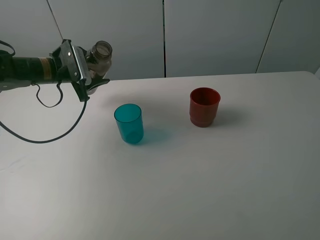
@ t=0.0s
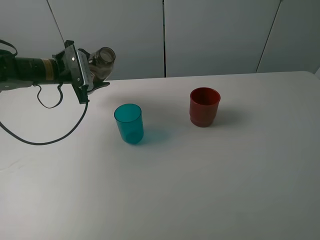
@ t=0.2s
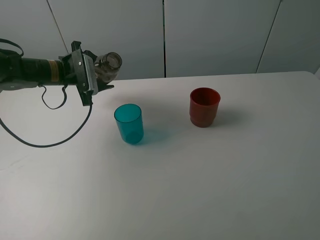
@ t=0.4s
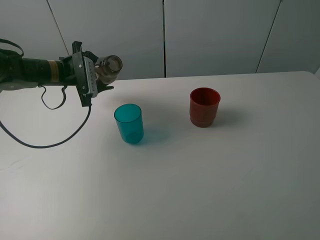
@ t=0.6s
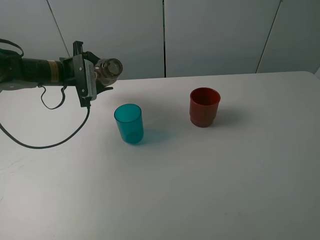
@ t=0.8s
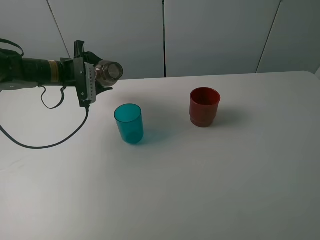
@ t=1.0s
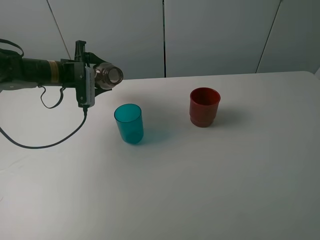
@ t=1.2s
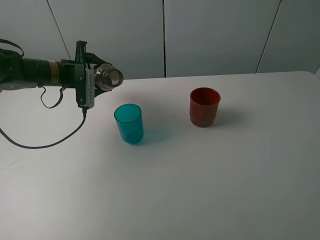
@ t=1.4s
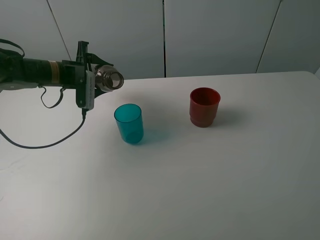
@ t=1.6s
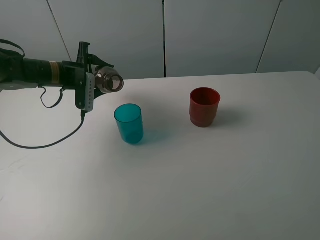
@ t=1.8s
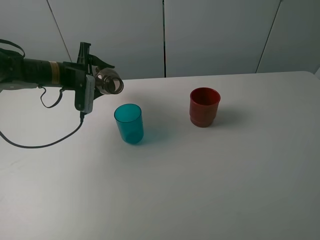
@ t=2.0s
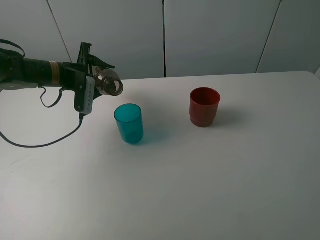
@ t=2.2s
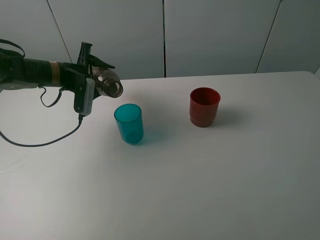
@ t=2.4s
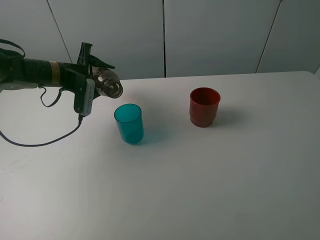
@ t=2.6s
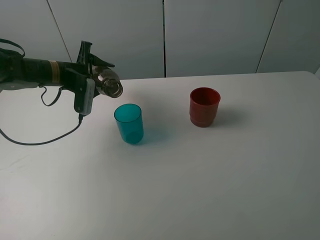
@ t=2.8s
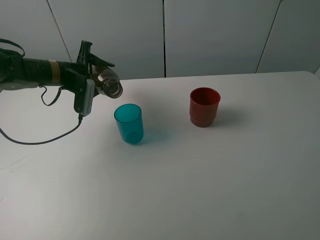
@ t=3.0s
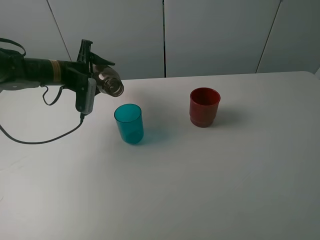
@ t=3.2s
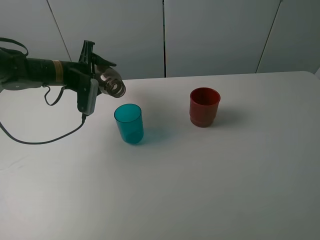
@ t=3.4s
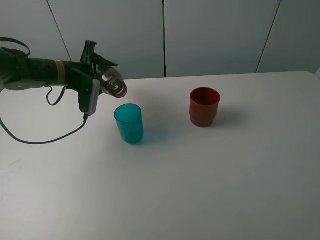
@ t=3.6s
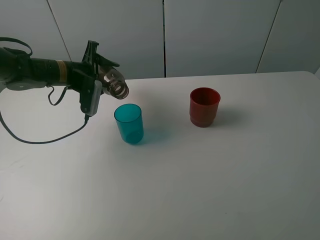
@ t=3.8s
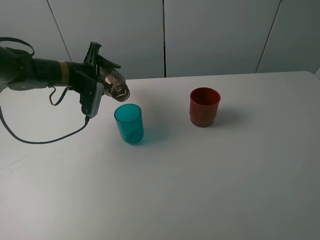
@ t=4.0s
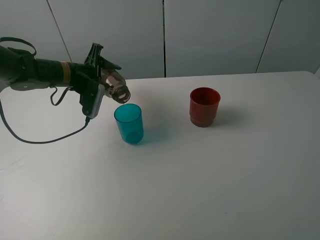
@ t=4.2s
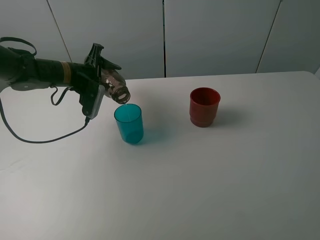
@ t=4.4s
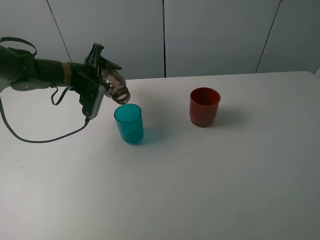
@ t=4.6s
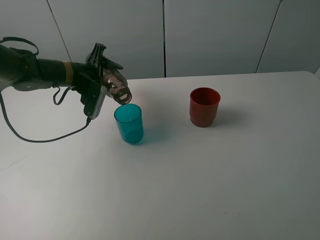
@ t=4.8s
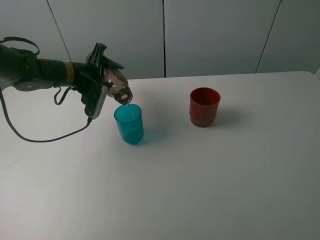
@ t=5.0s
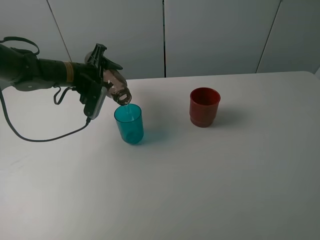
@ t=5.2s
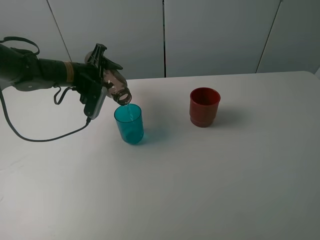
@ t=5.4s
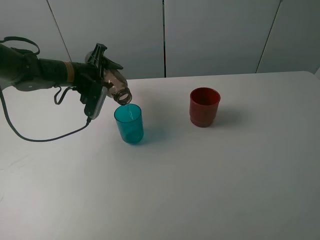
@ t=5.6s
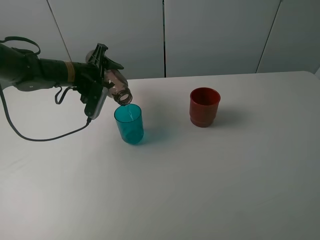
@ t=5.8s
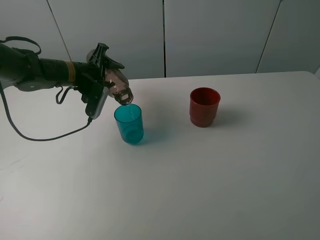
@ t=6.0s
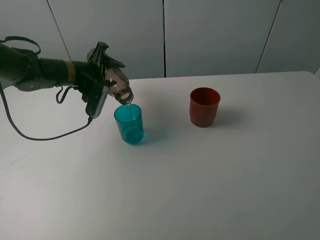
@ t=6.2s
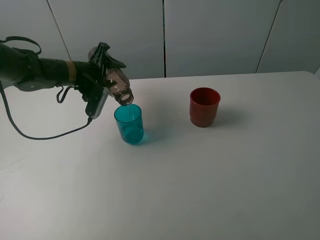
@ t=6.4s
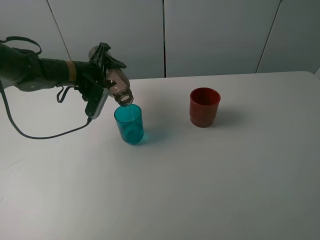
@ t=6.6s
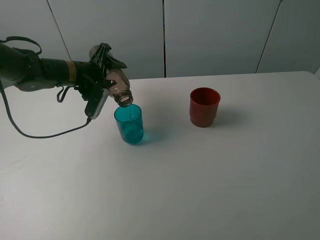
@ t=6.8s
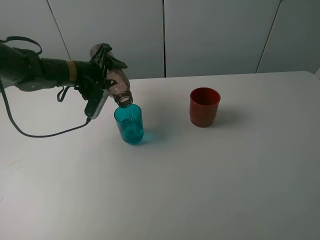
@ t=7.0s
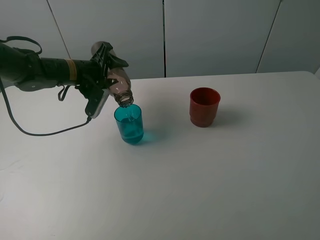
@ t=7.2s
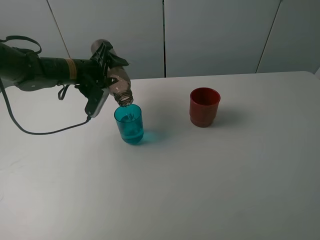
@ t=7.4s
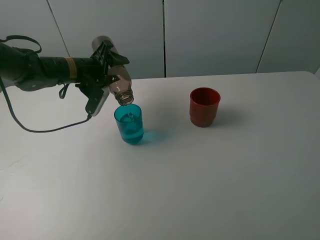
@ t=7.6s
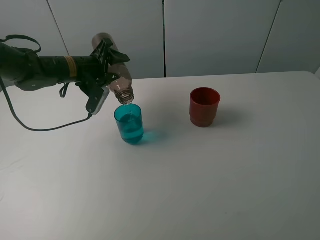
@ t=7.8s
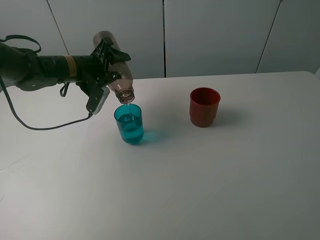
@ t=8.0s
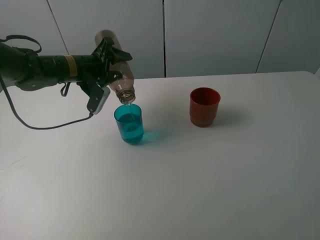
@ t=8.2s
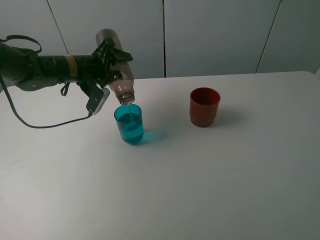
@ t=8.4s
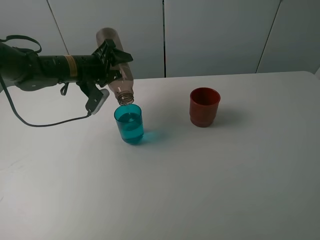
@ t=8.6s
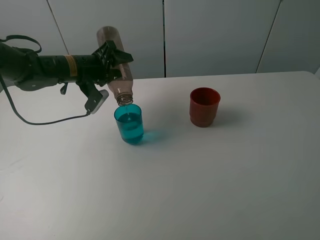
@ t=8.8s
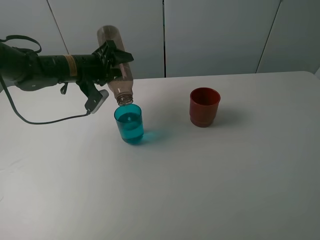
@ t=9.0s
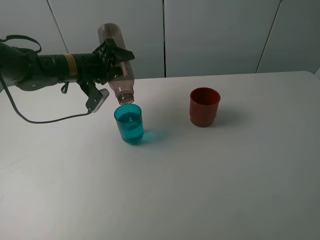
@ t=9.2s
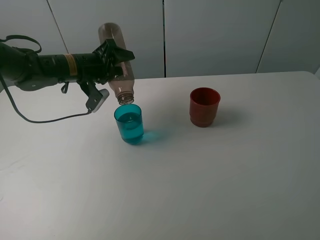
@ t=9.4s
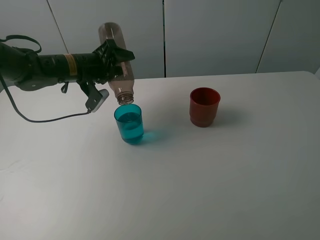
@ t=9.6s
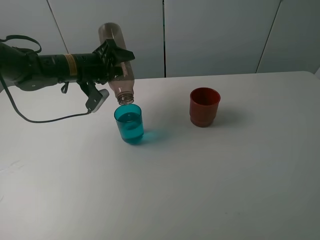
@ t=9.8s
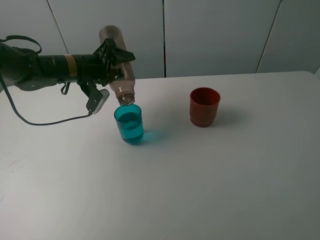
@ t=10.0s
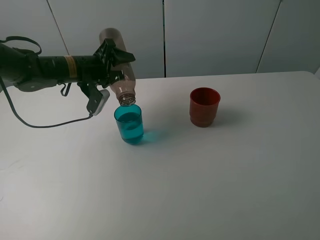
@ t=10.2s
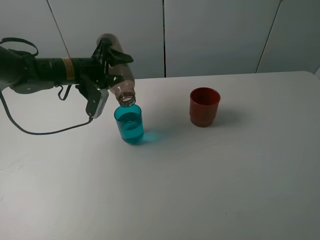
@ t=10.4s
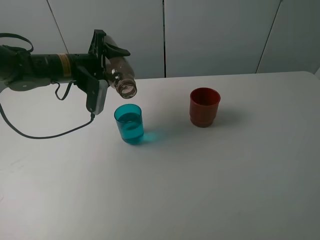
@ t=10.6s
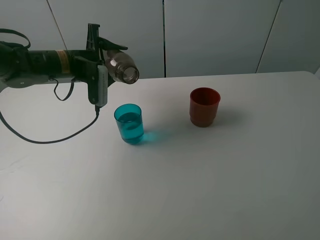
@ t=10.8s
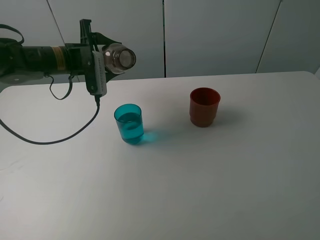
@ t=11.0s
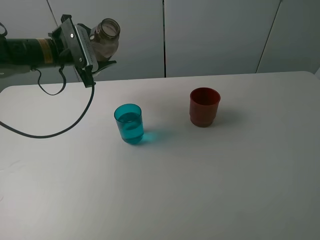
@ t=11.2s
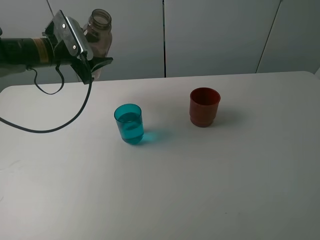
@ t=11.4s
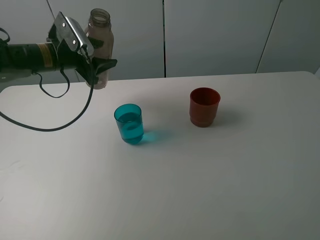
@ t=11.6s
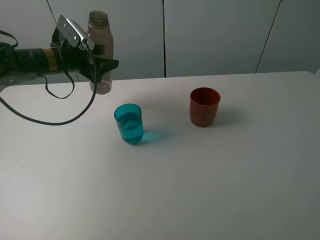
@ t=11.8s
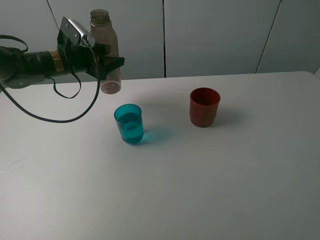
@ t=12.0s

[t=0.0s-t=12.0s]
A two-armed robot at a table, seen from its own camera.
Task of the whole recording: pick up the bottle and pour water into the cup, then pick up the cup containing water and pour it into another cup.
Step, t=0.0s to t=10.2s: Pour water from brown bottle to blue cup with the left gripper.
t=1.6s to t=3.0s: The grippers stay close to where they were, moving slightly.
t=3.0s to t=6.0s: There are only small adjustments of the grippers.
t=6.0s to t=7.6s: There are only small adjustments of the grippers.
t=7.6s to t=10.4s: The grippers move only a little.

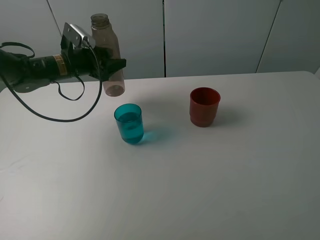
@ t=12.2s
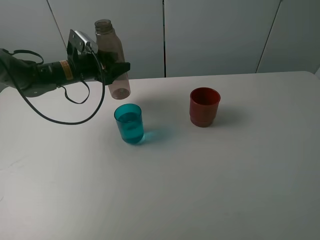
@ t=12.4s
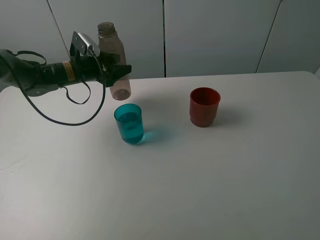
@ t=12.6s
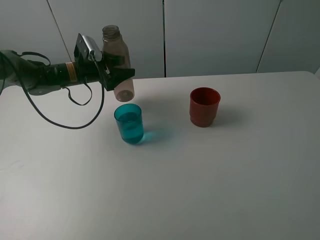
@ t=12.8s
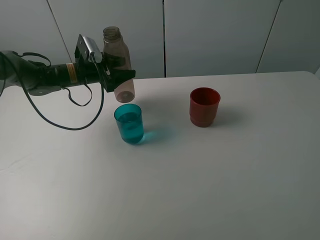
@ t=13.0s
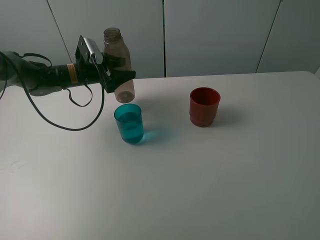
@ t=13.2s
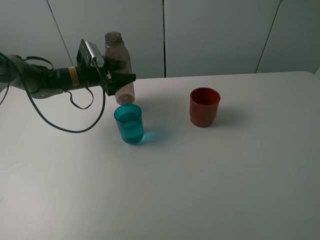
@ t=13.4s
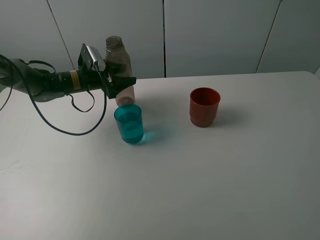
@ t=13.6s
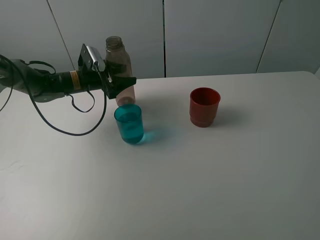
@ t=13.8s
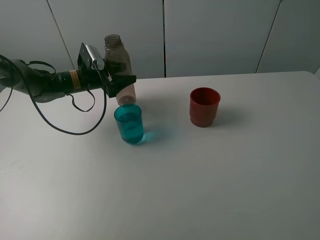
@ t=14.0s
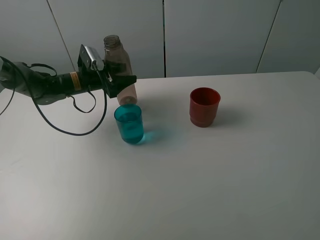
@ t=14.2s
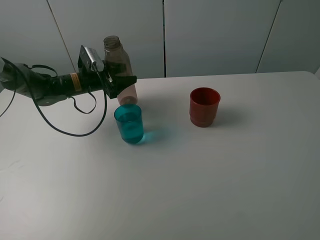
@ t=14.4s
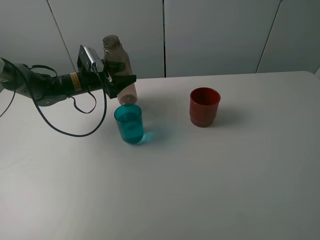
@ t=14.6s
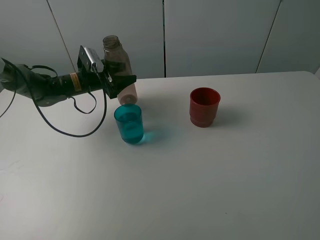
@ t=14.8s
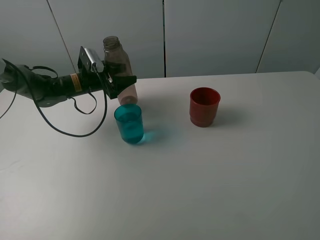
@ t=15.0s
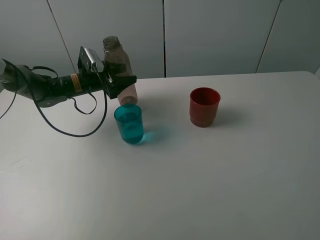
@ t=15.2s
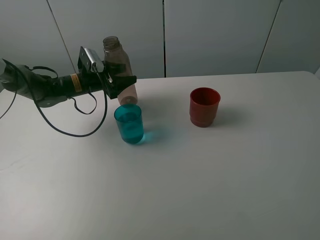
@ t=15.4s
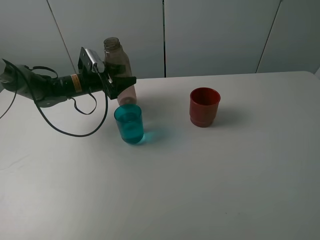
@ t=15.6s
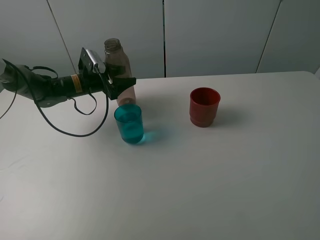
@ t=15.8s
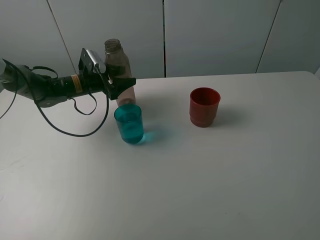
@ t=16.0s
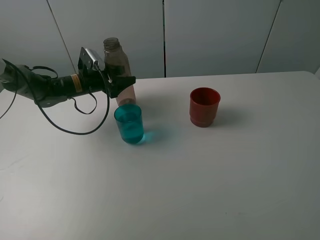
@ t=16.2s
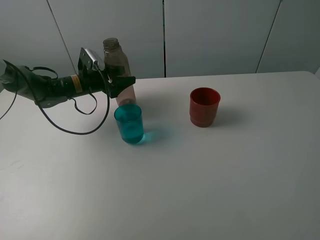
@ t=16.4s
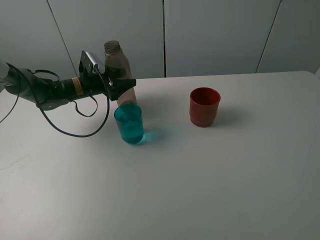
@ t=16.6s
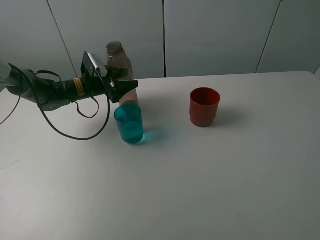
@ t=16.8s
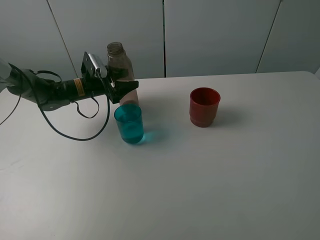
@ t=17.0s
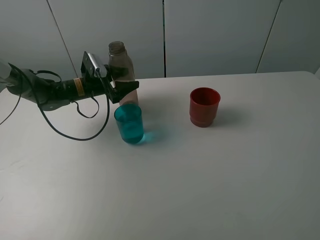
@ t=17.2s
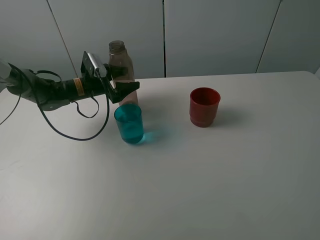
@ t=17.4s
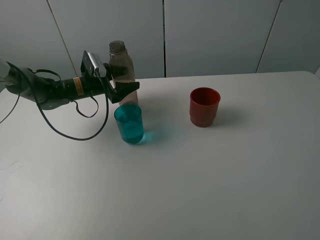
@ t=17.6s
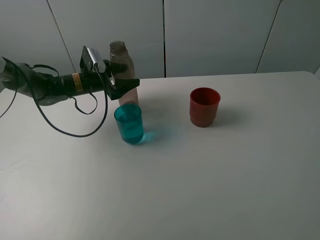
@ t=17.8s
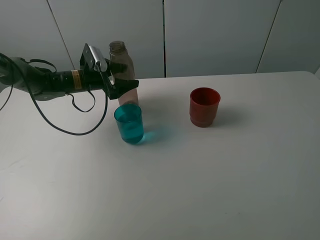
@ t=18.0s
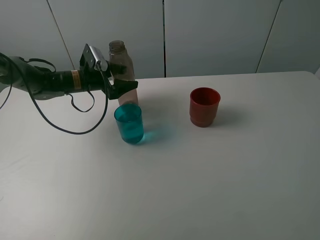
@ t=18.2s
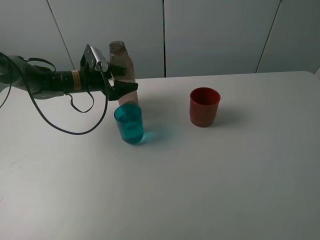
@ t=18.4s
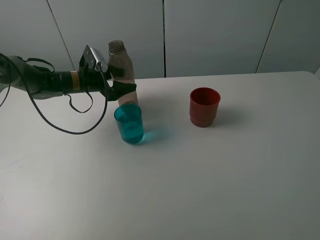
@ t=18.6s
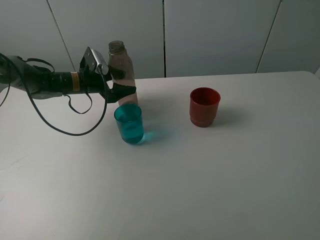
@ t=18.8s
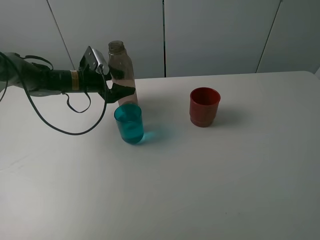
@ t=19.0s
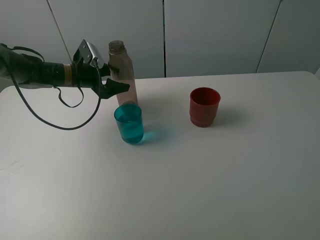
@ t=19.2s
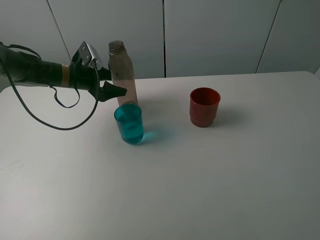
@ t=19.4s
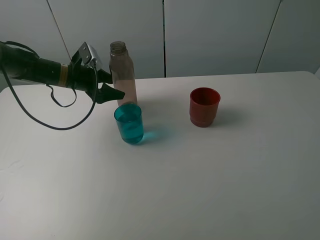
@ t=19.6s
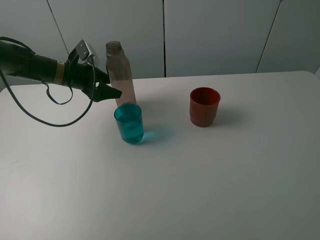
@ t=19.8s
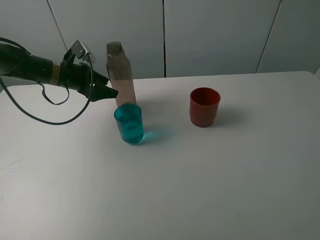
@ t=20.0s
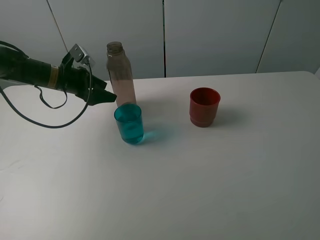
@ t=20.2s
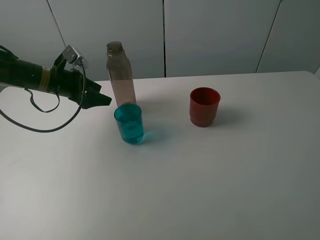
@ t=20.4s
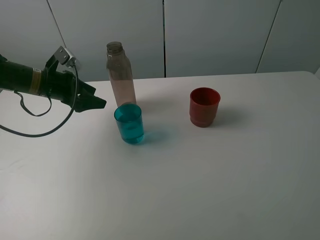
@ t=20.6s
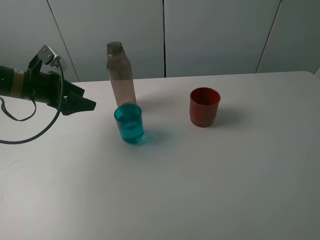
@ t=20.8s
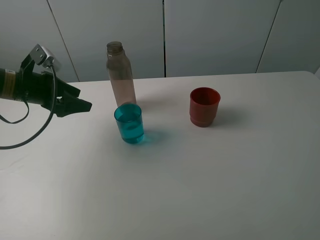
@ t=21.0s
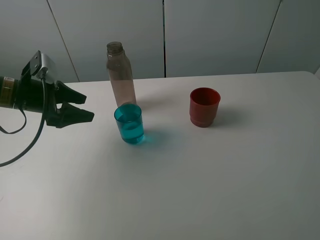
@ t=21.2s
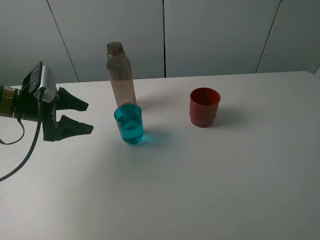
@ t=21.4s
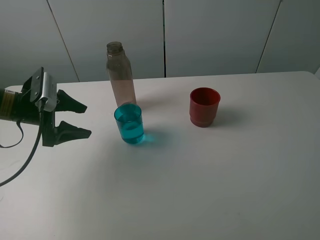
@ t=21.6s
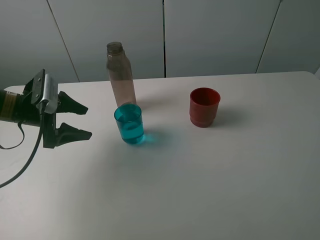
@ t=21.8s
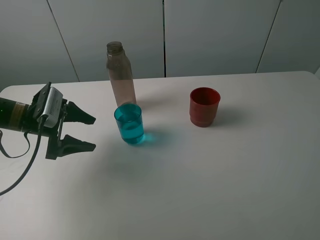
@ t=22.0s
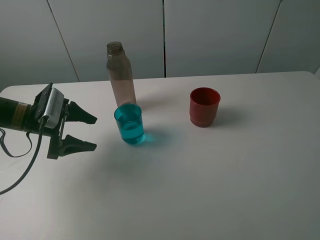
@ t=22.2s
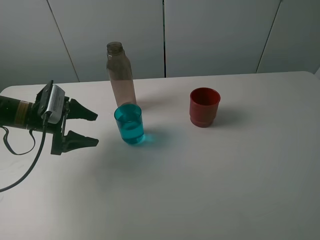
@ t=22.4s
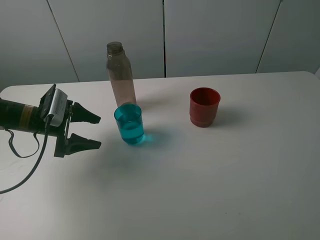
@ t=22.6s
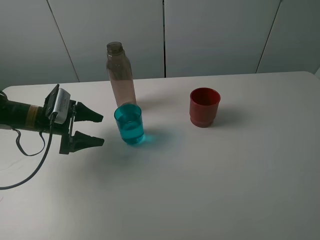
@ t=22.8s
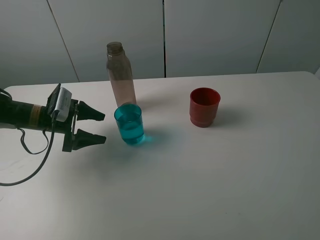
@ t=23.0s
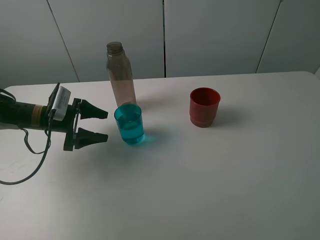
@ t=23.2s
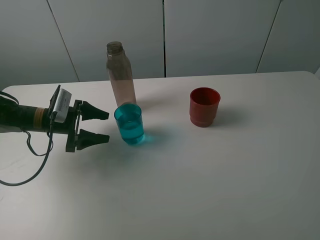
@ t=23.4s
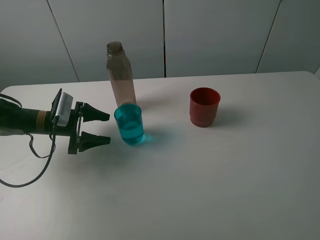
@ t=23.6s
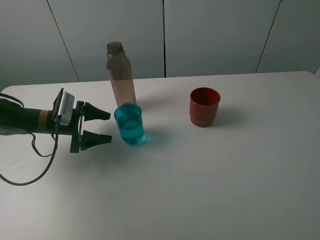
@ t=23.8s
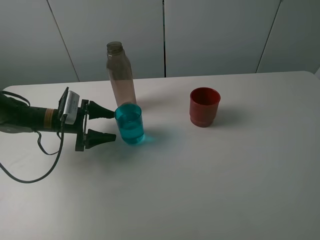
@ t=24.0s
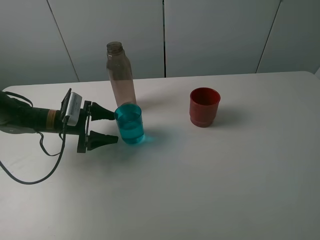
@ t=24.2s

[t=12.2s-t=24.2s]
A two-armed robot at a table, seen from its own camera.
Task of the whole recording: pick up the bottle and pour water into the cup, then pick up the cup containing water and pour it into another cup.
Step, t=12.2s to t=18.2s: Place the brown bottle with the left gripper.
t=12.2s to t=13.8s: The left gripper shifts by approximately 5 cm.
t=13.8s to t=15.2s: Both grippers stay put.
t=15.2s to t=16.6s: The grippers move only a little.
t=16.6s to t=18.2s: The left gripper opens up.
t=19.8s to t=21.2s: The left gripper is displaced backward by roughly 10 cm.
t=21.2s to t=22.6s: The left gripper goes approximately 5 cm downward.
t=22.6s to t=24.2s: The left gripper changes place by roughly 5 cm.
